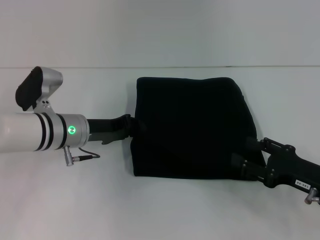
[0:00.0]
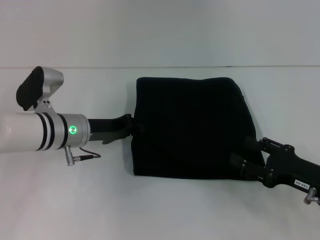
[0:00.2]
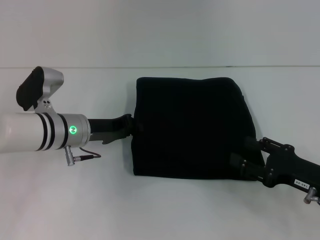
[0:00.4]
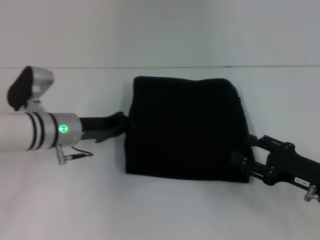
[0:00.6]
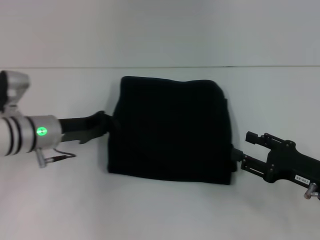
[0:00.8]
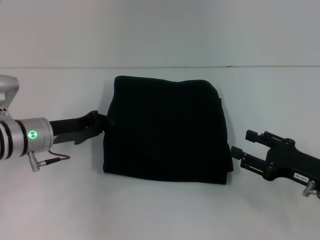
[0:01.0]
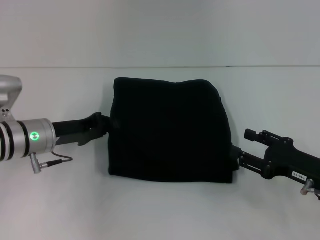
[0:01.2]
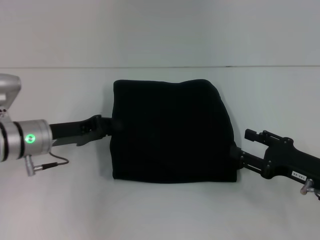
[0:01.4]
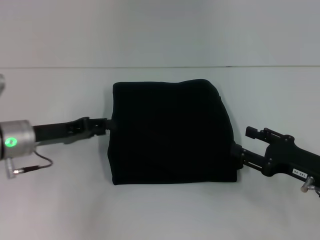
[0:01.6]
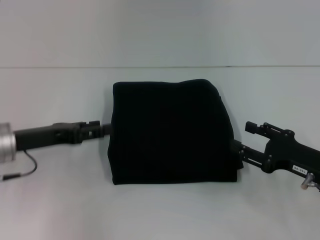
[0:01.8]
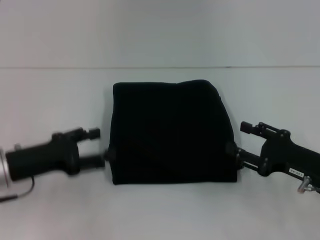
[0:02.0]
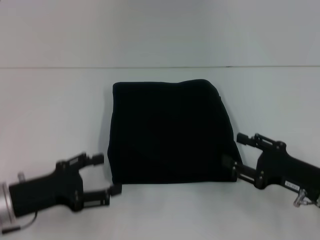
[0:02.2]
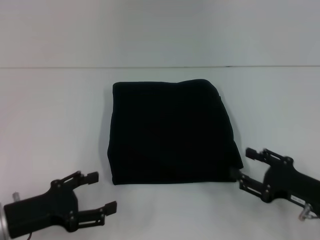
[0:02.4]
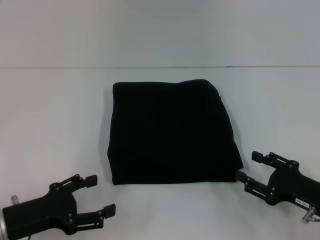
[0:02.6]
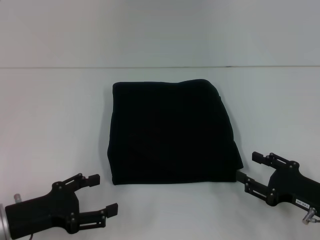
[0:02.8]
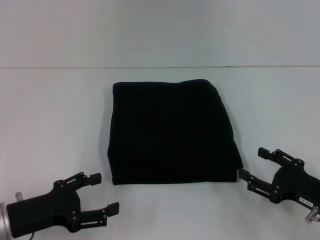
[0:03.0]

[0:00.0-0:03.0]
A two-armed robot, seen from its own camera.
0:00.0 to 0:01.6: The left gripper goes roughly 10 cm to the left.
0:01.6 to 0:03.0: The left gripper shifts roughly 10 cm backward, and opens its fingers.
